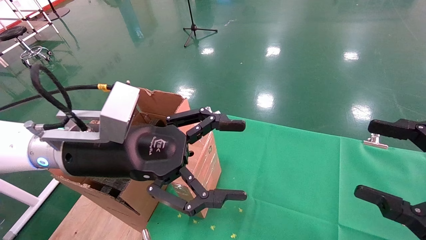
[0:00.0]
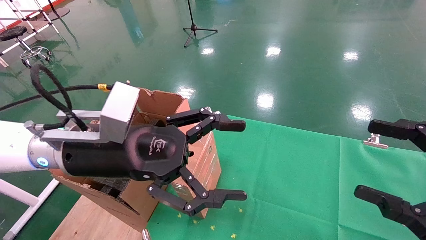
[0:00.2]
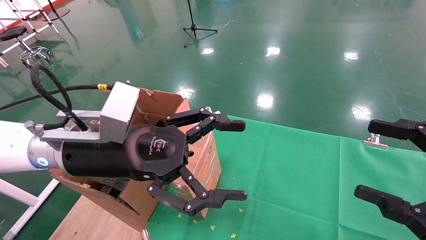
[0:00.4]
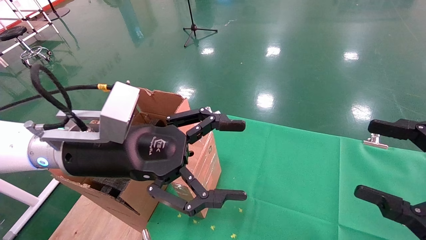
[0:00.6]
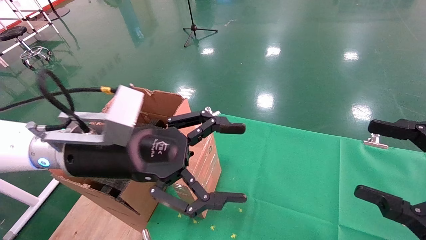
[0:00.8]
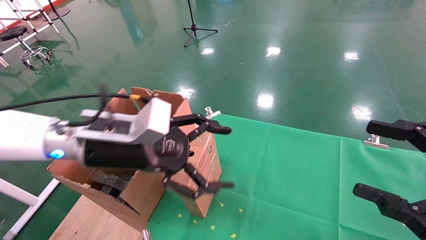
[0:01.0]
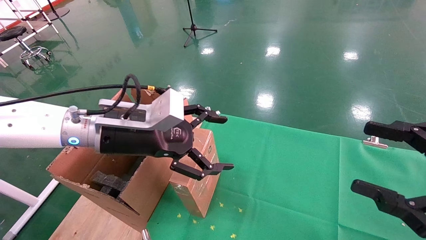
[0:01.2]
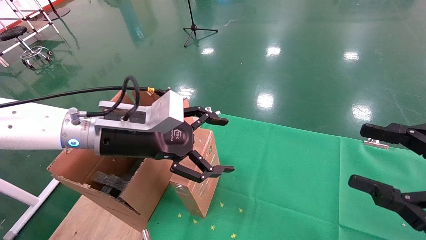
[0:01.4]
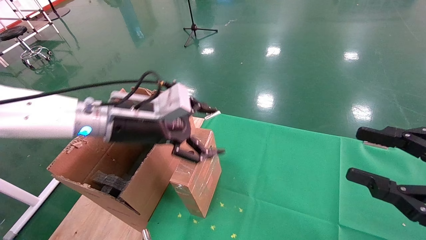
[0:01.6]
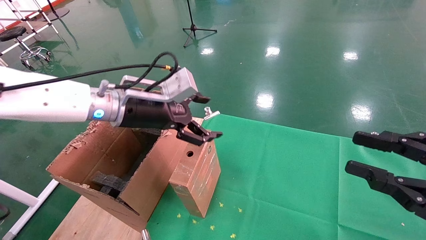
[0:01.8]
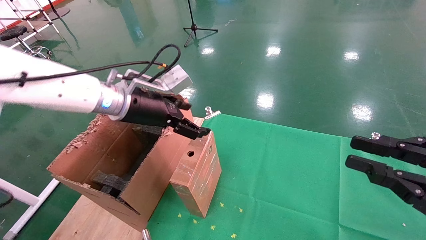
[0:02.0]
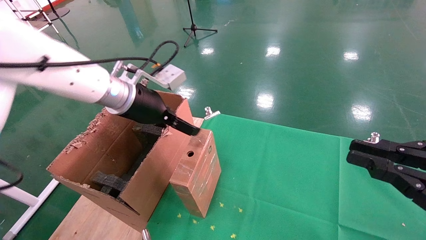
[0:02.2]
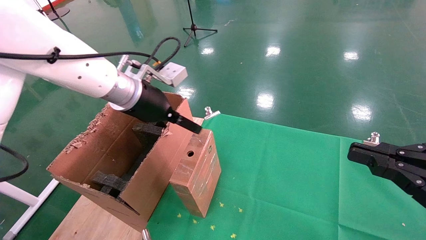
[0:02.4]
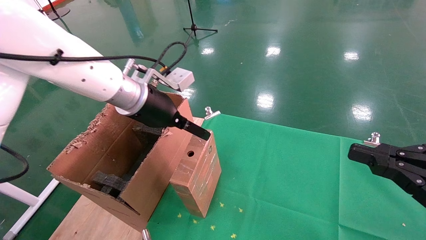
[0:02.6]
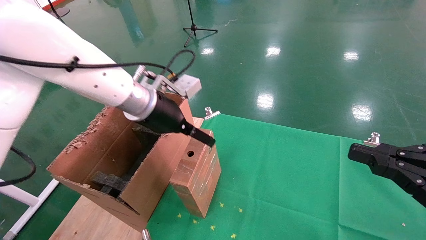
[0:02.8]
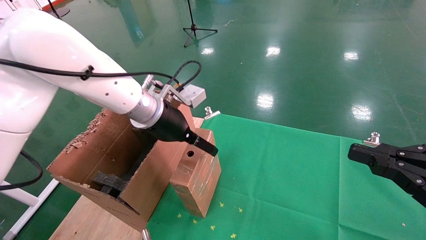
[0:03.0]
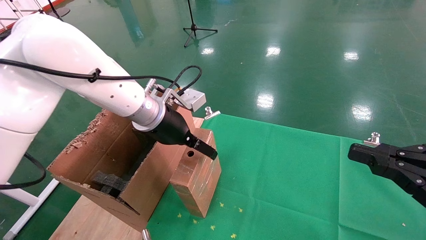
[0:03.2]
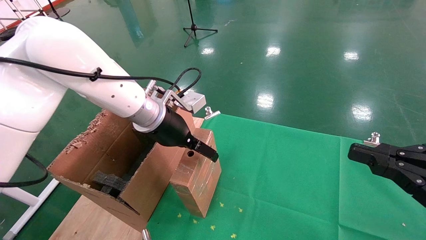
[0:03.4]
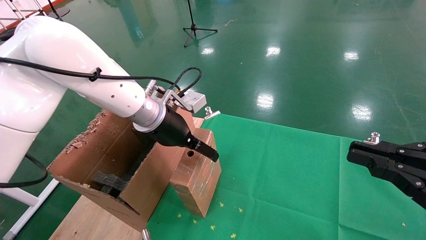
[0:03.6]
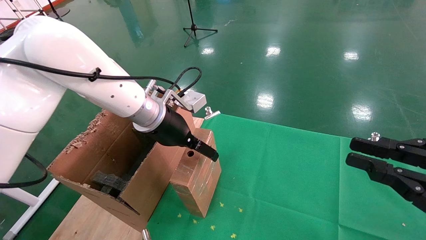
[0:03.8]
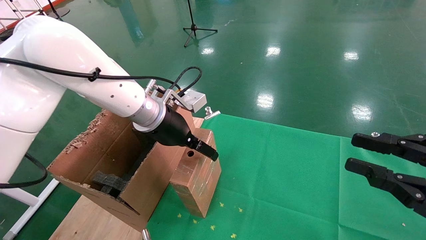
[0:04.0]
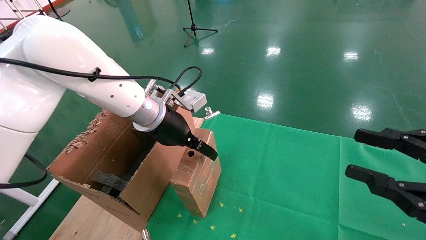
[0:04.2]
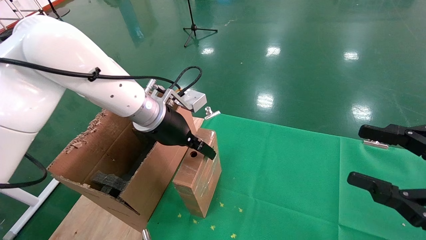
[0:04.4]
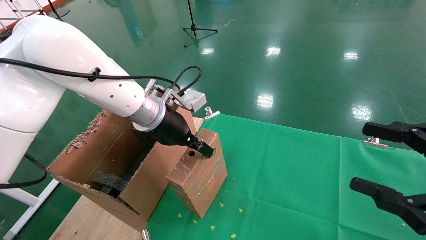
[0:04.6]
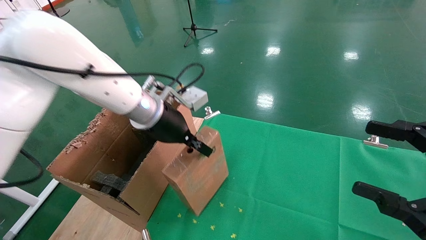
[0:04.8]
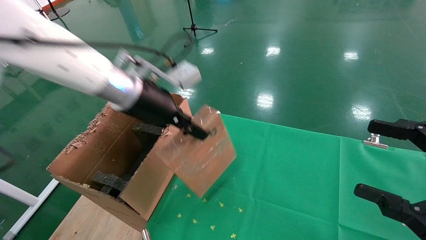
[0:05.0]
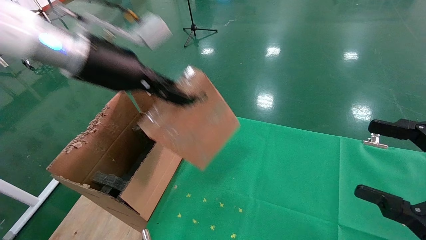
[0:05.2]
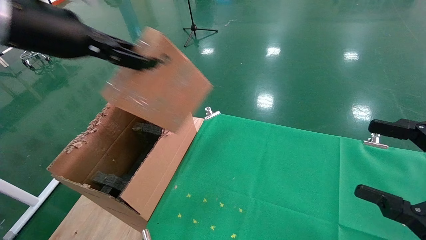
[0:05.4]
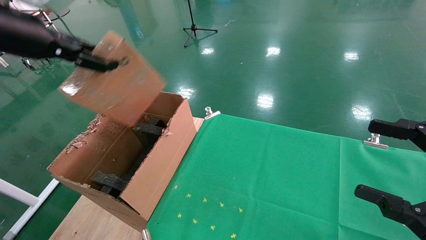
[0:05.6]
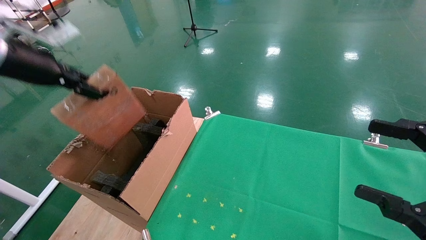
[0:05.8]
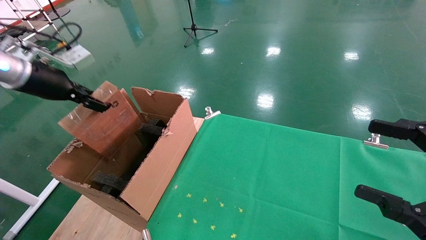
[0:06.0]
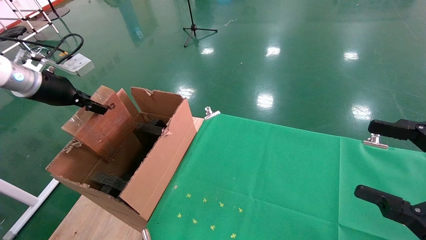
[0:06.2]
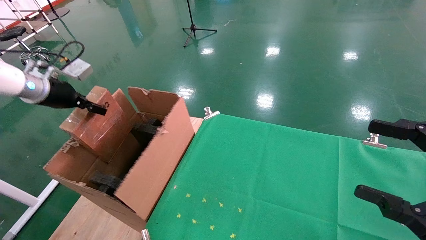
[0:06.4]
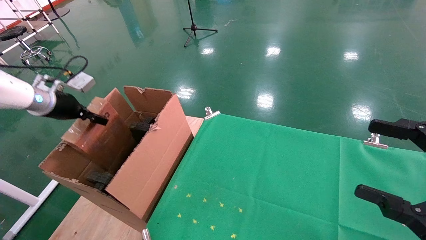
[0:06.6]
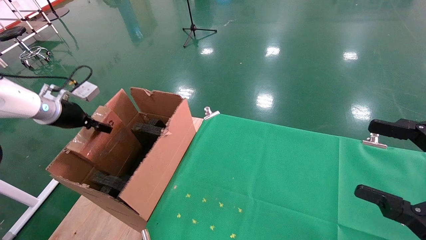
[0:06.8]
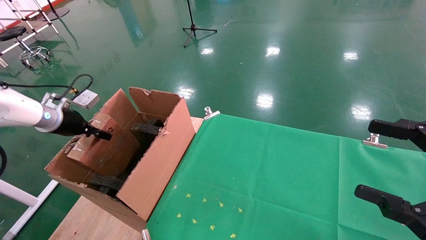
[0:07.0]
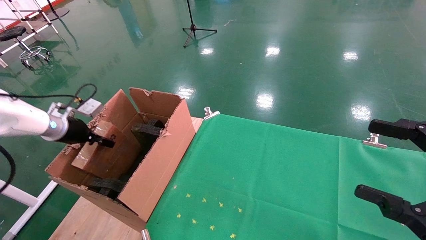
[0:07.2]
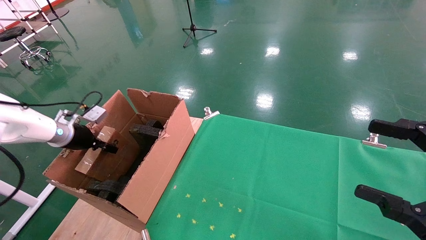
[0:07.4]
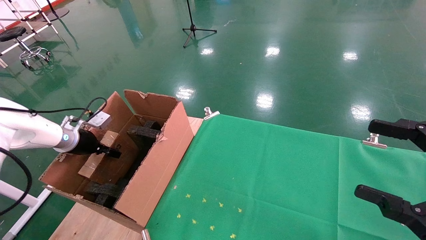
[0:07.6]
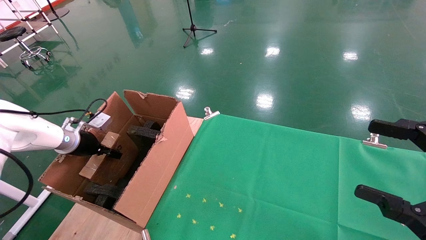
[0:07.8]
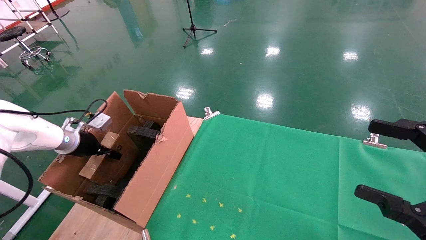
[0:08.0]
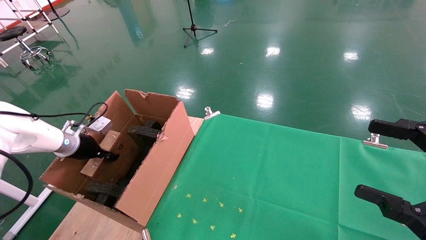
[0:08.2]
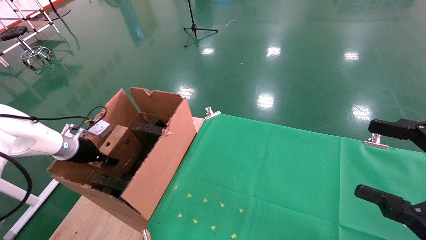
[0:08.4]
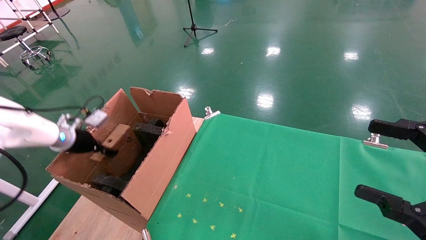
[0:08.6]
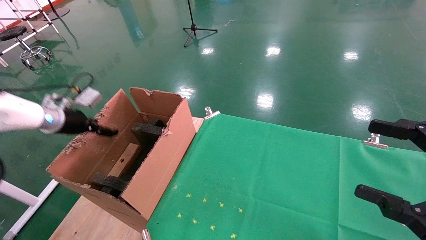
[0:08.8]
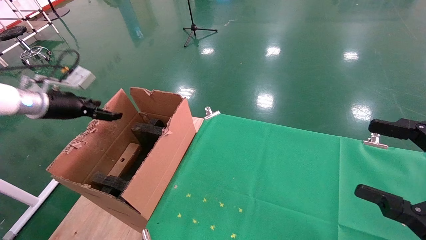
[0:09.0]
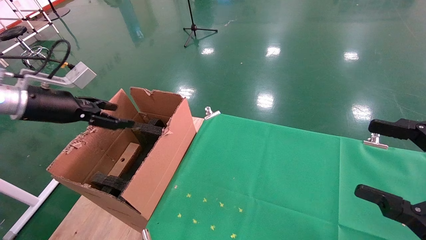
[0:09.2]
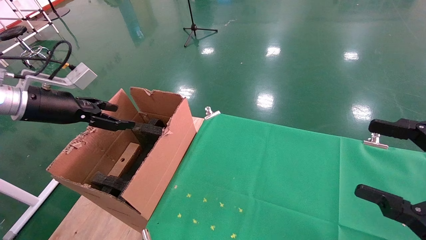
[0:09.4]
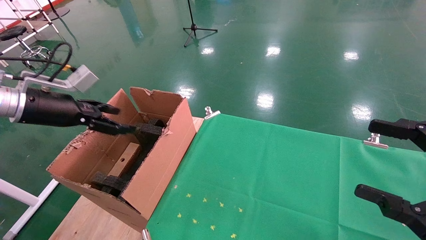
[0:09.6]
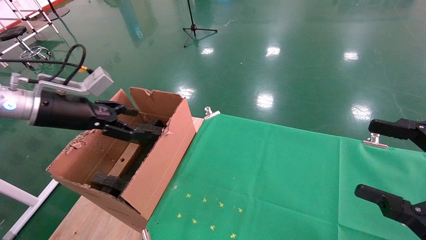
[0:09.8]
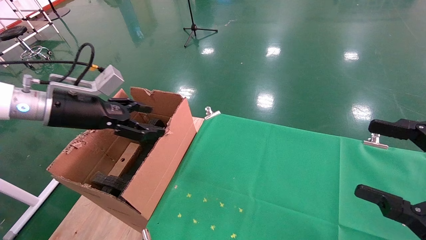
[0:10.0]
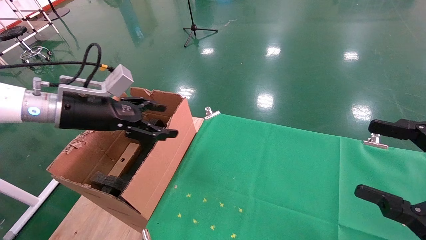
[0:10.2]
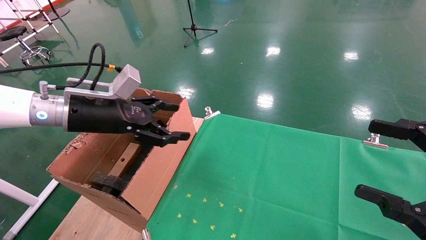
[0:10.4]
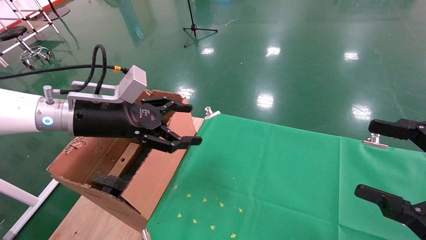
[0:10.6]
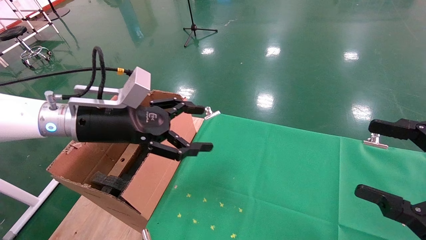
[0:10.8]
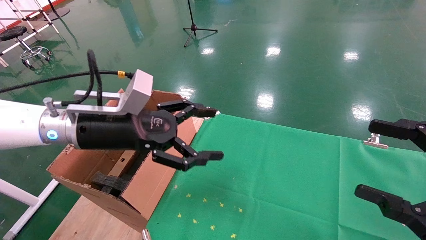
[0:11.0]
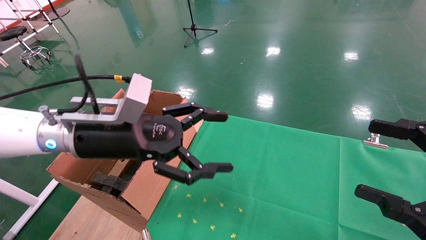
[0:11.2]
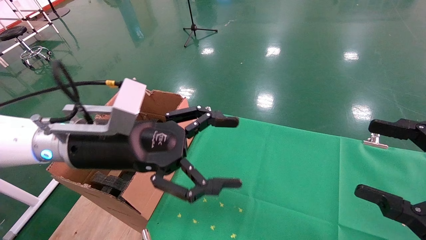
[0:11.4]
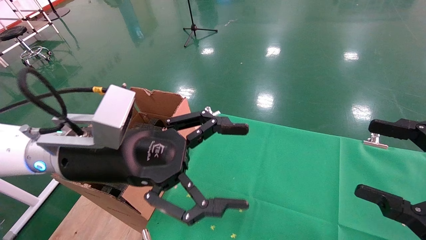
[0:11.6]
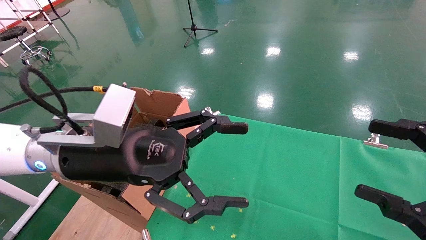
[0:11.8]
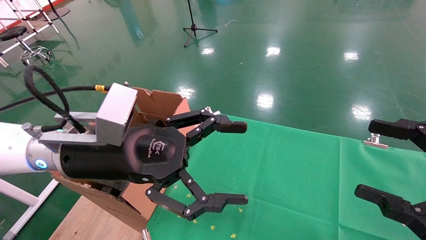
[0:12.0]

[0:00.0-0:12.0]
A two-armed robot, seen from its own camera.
Task of the whole recording: using a robotic arm to pick up a cardboard box and palace it the carton.
Step, 0:01.0 to 0:04.6: Pick up the mouse and the power cord paper box.
Step, 0:04.8 to 0:09.0: Place the mouse and the power cord paper box into the container.
0:00.0 to 0:01.6: The left gripper is displaced forward by some 10 cm. The right gripper closes its fingers.
0:01.6 to 0:03.0: The left gripper moves some 5 cm; the right gripper closes its fingers.
0:03.0 to 0:04.4: The right gripper opens its fingers. The left gripper closes up.
0:04.4 to 0:06.0: The right gripper opens. The left gripper shifts some 25 cm to the left, and closes.
0:06.0 to 0:07.6: The left gripper is displaced downward by about 20 cm.
0:07.6 to 0:09.0: The left gripper moves upward, some 10 cm, and opens its fingers.
0:09.0 to 0:10.4: The left gripper heads to the right, covering roughly 15 cm.
0:10.4 to 0:12.0: The left gripper travels to the right and backward by approximately 15 cm.

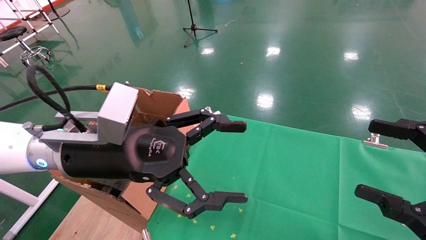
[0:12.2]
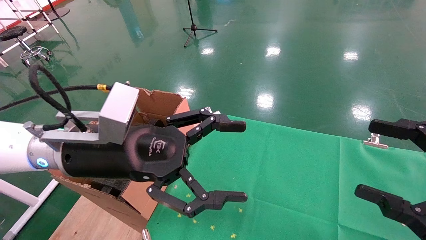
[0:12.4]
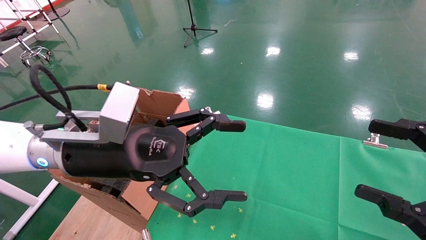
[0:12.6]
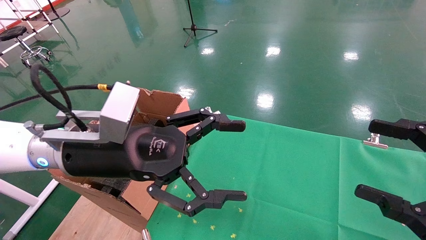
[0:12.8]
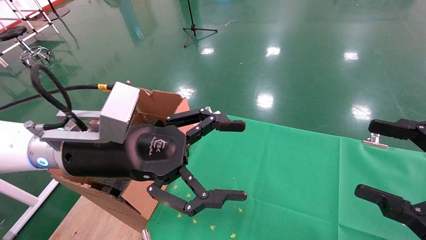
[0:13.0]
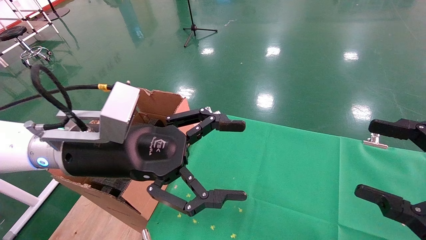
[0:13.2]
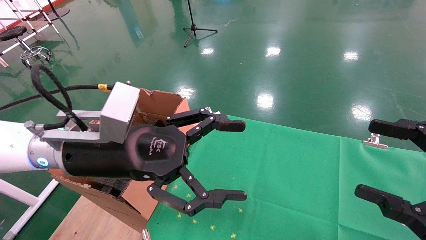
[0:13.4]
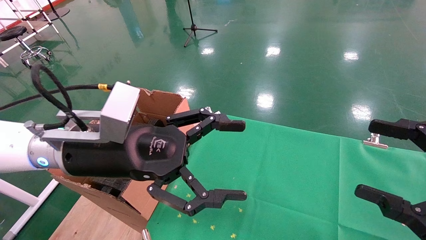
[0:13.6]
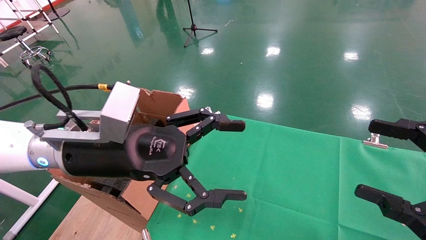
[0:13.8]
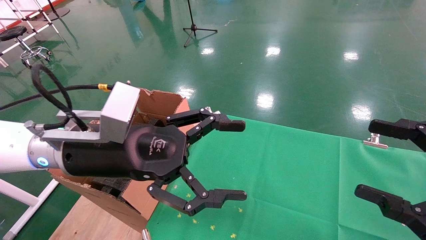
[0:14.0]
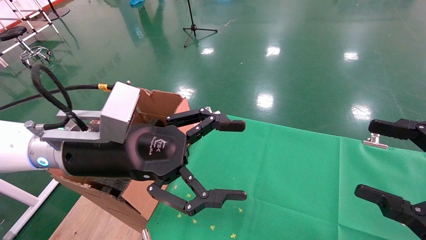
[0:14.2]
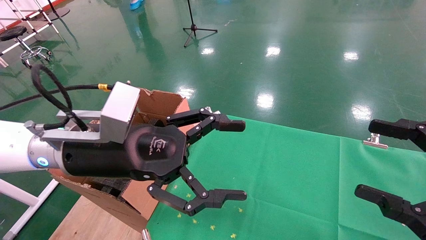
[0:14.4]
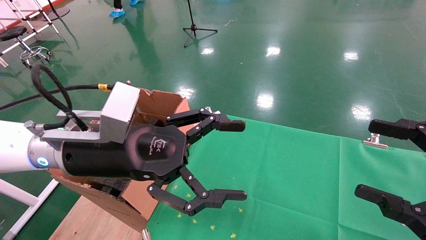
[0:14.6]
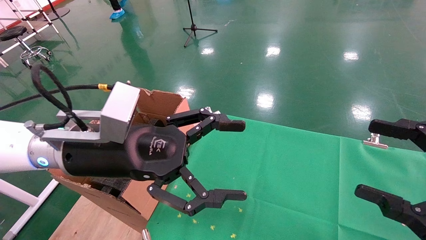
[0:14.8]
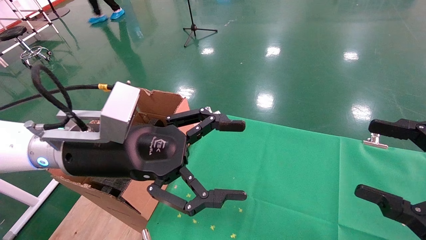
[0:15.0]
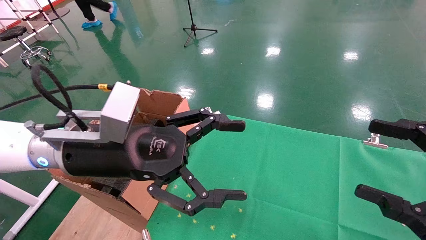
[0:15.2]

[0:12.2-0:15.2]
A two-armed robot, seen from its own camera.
Task of the whole recording: using a robotic arm to pick up a cardboard box and palace it the carton.
0:12.2 to 0:15.2: Both grippers stay put.
